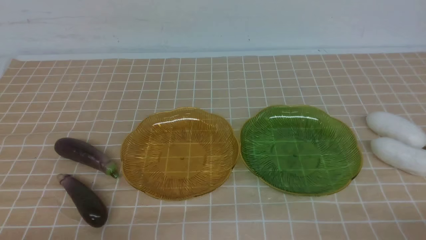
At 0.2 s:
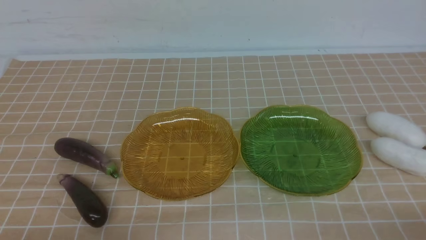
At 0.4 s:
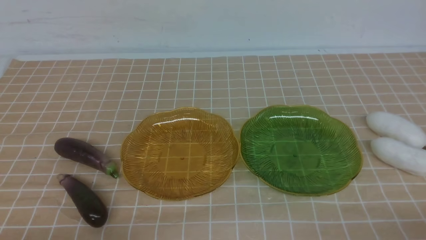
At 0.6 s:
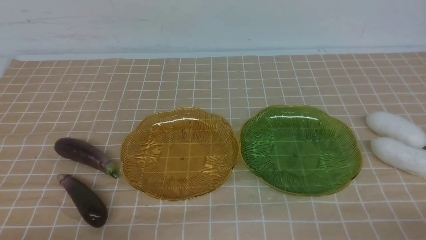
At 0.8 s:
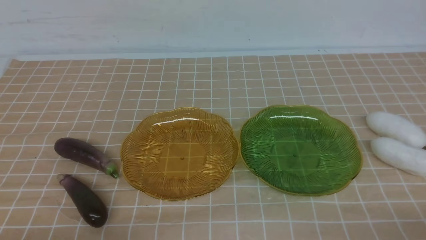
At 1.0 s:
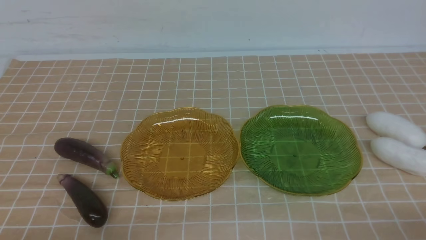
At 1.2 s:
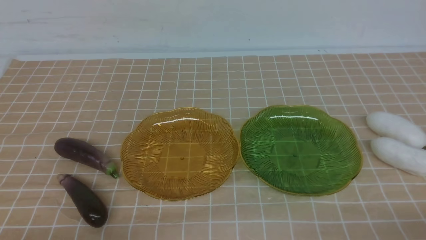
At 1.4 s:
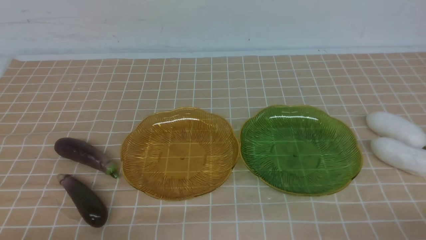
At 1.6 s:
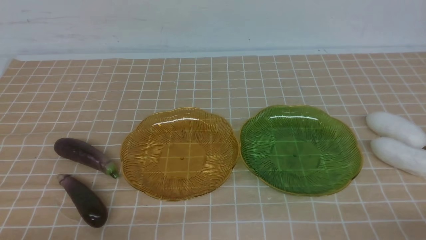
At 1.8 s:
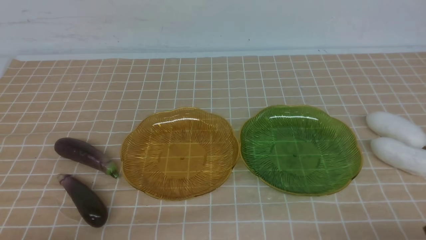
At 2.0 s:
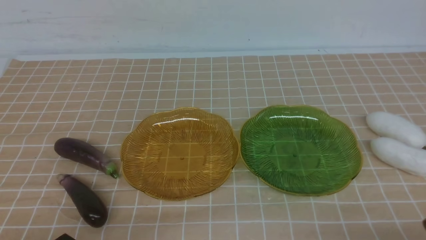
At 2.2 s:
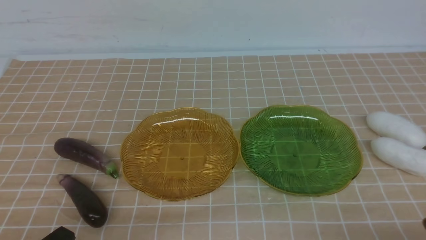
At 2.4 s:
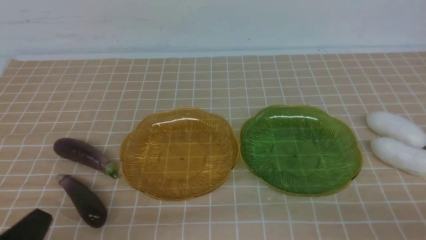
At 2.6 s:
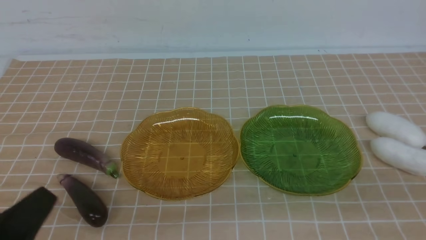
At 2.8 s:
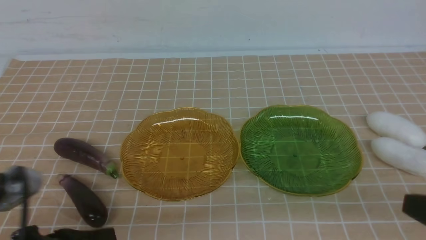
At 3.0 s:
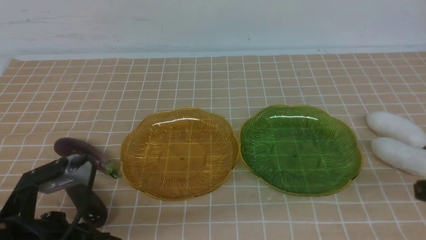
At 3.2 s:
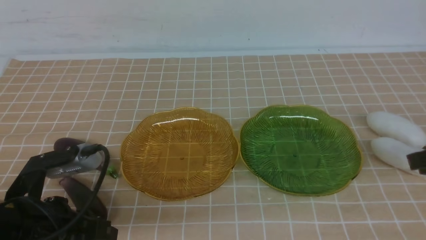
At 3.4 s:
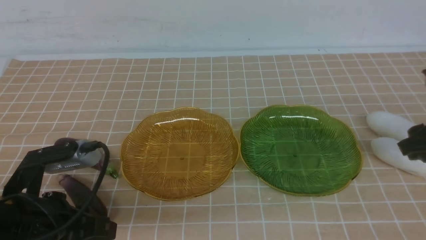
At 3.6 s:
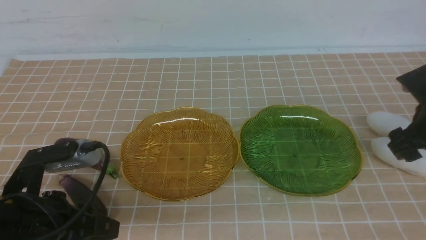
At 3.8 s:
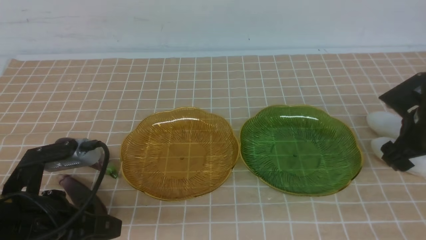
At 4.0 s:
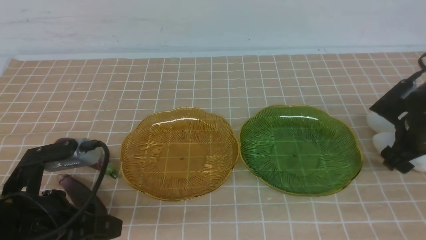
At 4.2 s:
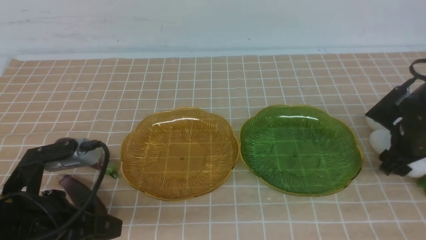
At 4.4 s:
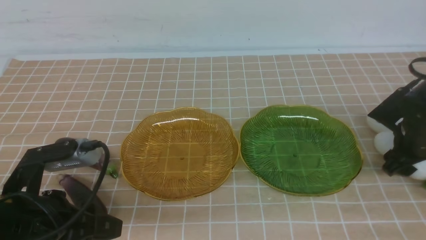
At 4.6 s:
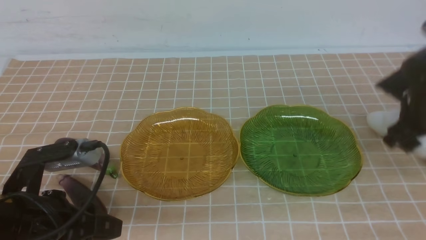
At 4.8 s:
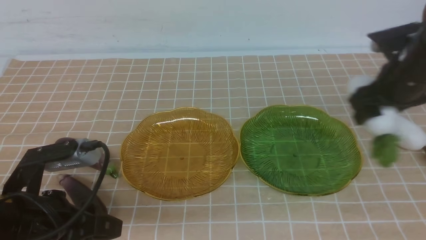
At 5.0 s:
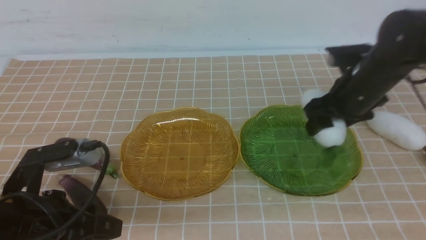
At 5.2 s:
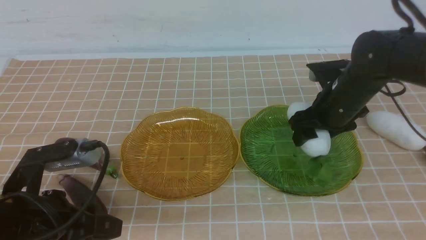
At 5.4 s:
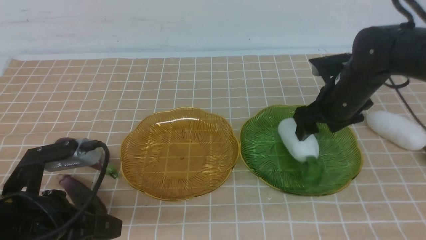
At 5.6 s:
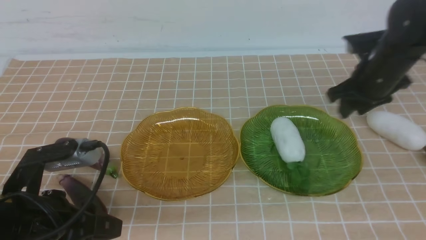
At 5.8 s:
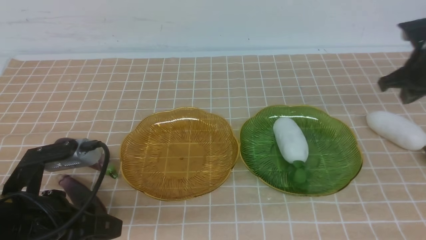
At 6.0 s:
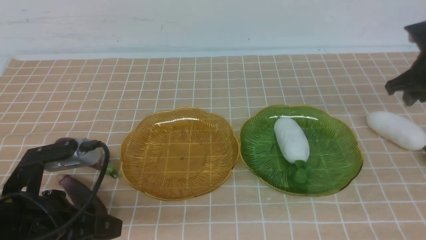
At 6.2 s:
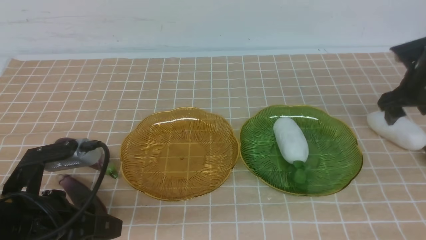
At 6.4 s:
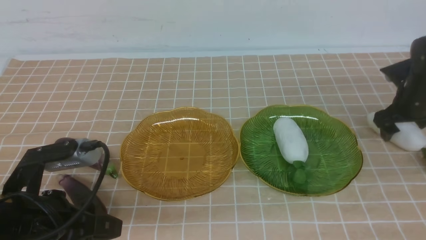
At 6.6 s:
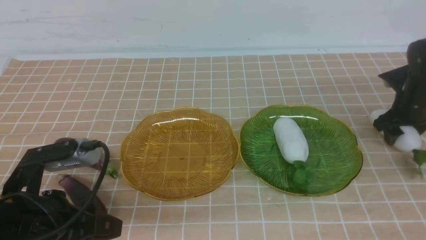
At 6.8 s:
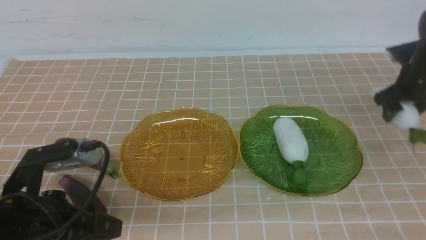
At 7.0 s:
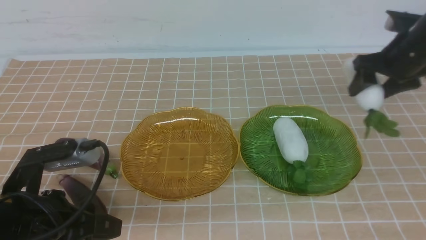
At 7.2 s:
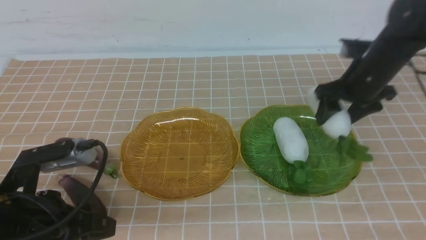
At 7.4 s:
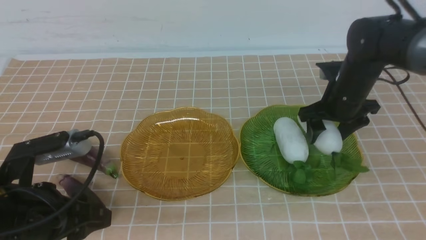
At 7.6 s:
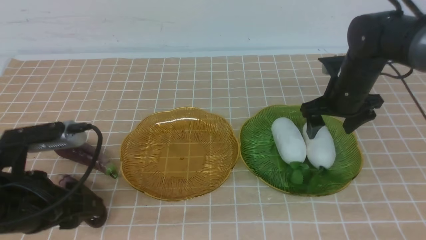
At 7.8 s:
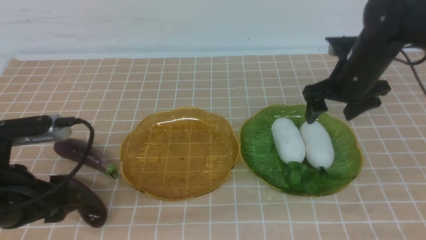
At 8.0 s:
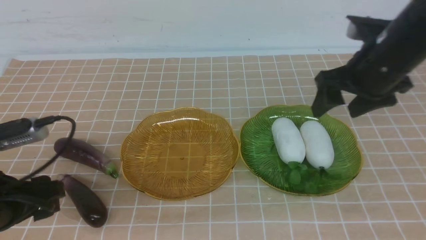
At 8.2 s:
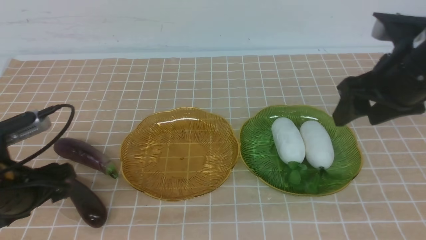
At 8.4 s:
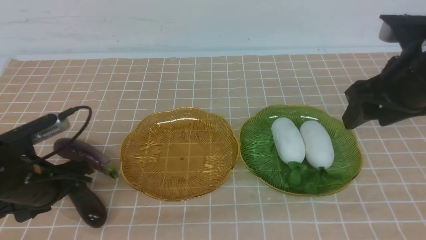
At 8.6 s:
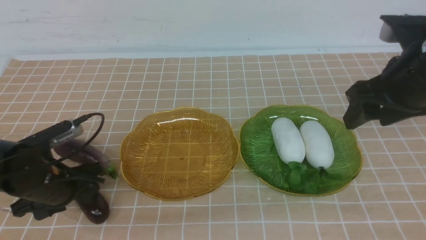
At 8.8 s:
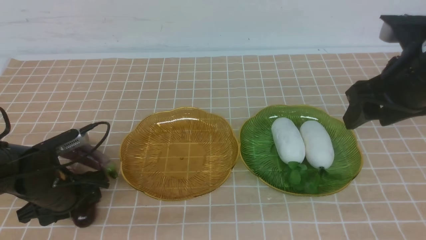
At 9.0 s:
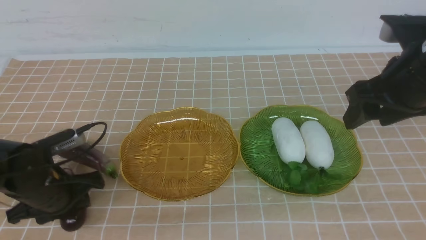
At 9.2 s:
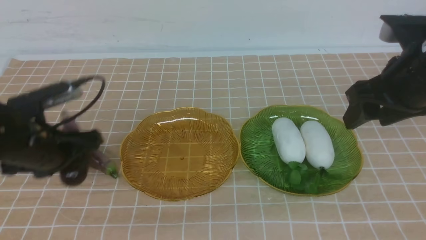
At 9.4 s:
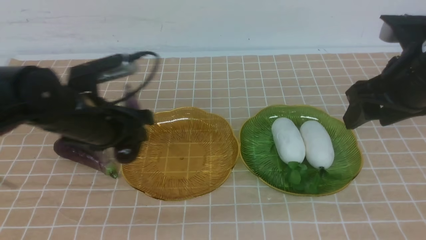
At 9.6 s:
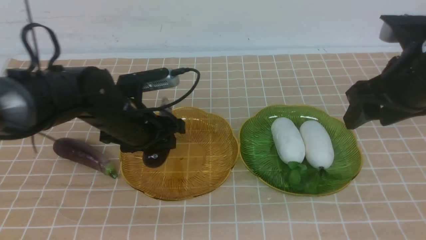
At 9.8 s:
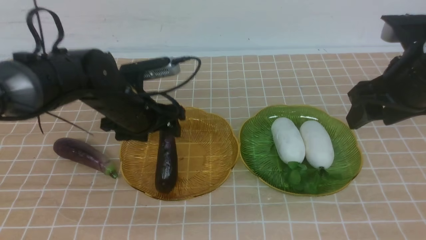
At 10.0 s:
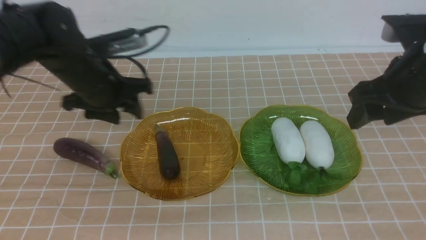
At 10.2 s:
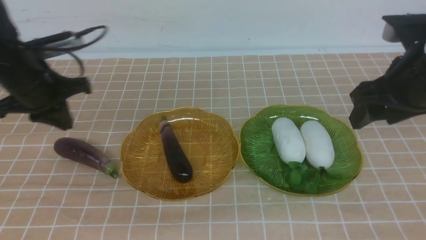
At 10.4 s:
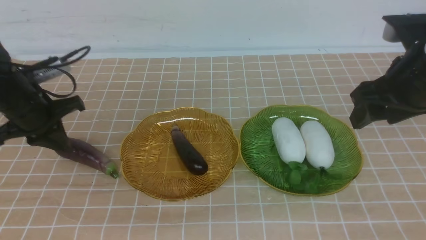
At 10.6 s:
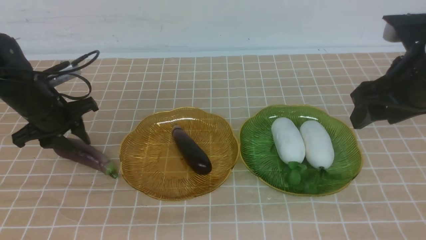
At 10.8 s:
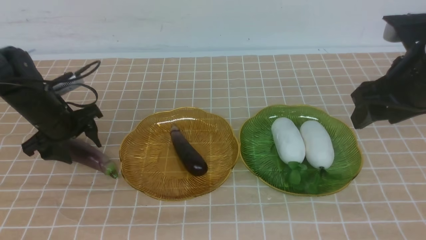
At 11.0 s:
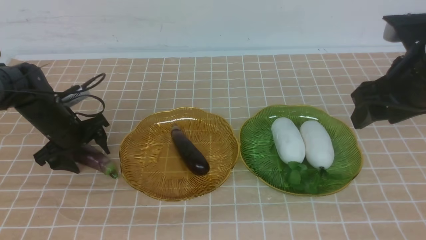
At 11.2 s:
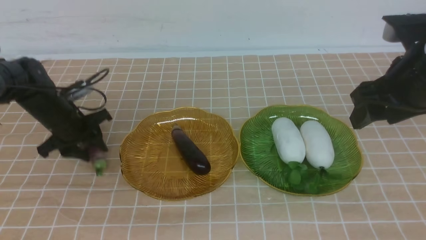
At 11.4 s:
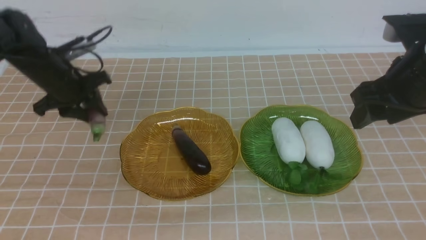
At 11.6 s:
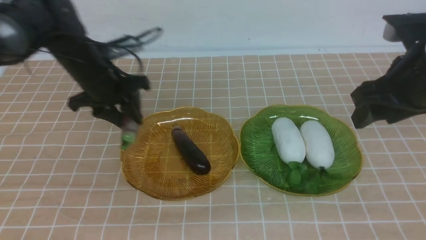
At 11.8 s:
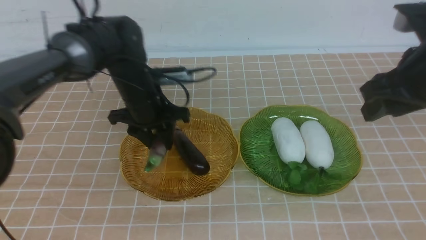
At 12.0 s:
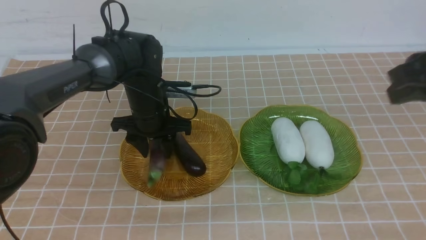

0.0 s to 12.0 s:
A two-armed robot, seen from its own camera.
Step, 0.0 to 5.2 s: use the right arm to grab a radish and put it into the right plate.
Step, 5.6 to 7.4 s: use the right arm to grab a radish and put it into the right plate.
Step, 7.6 to 9.6 s: use the left arm to grab an eggplant and put it into the left plate.
1.6 to 3.0 s: Both grippers move forward and upward, roughly 15 cm.
3.0 to 4.4 s: The right gripper shifts roughly 20 cm forward and downward, and opens, while the left gripper opens up.
4.4 to 6.0 s: The right gripper travels forward by roughly 5 cm, moves roughly 10 cm to the left and comes back, and closes, then opens again.
6.0 to 7.6 s: The right gripper moves to the left and upward, some 15 cm.
7.6 to 9.0 s: The left gripper moves forward, roughly 10 cm. The right gripper heads backward and upward, covering roughly 10 cm.
9.0 to 10.4 s: The left gripper heads forward and to the left, covering approximately 10 cm, and closes up.
10.4 to 12.0 s: The right gripper shifts roughly 10 cm upward and backward, and closes up, while the left gripper shifts about 15 cm to the right, and opens its fingers.

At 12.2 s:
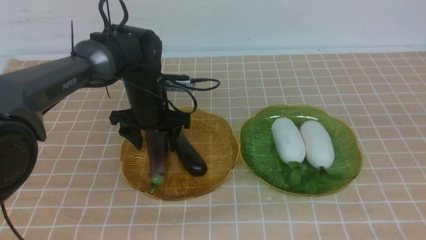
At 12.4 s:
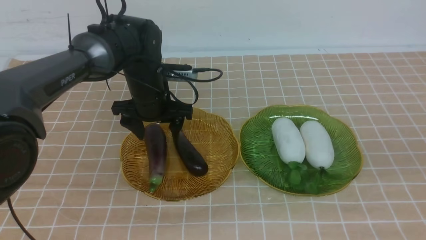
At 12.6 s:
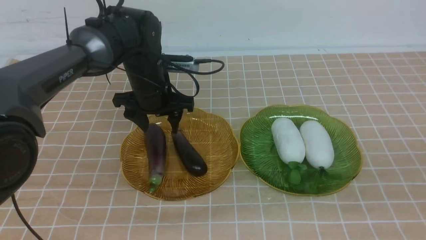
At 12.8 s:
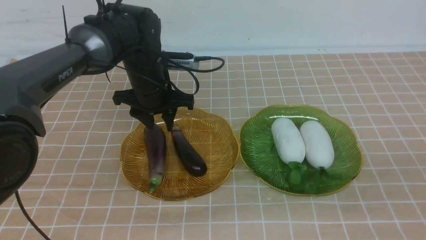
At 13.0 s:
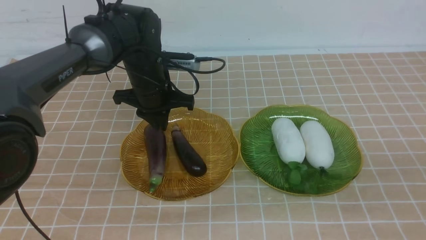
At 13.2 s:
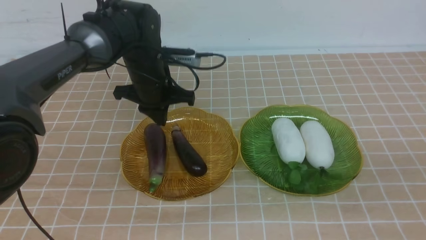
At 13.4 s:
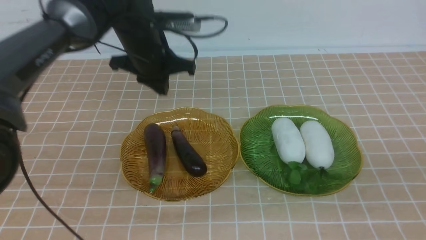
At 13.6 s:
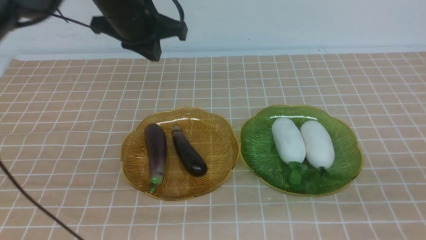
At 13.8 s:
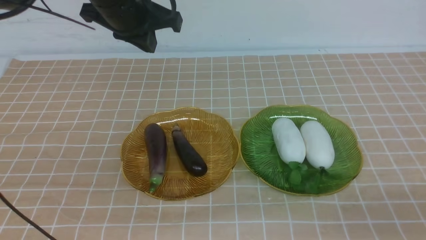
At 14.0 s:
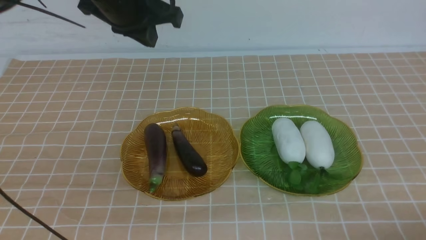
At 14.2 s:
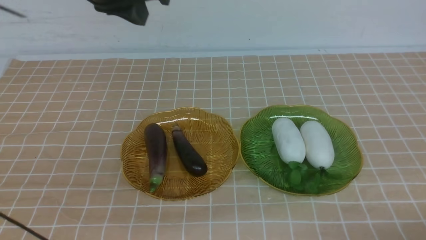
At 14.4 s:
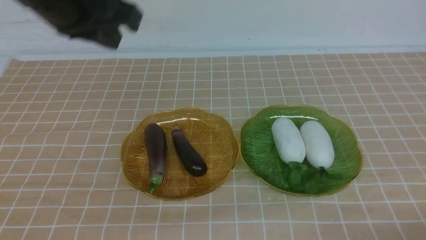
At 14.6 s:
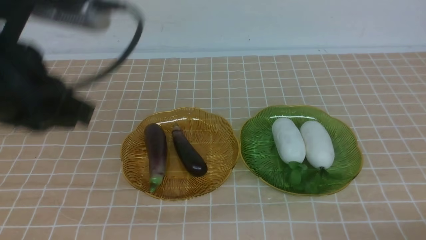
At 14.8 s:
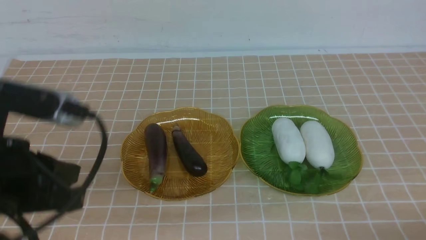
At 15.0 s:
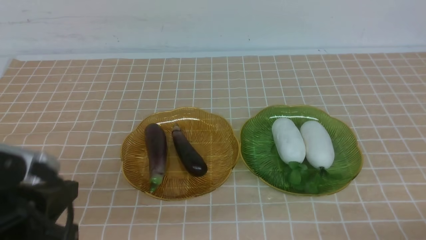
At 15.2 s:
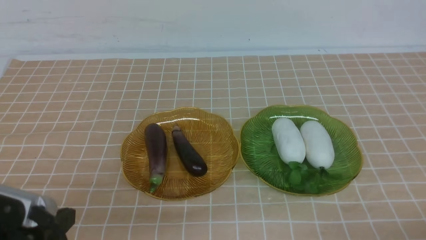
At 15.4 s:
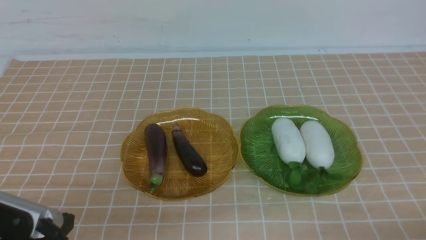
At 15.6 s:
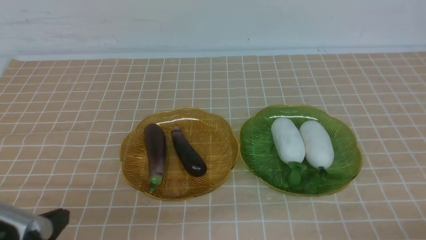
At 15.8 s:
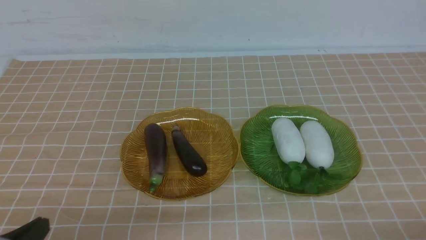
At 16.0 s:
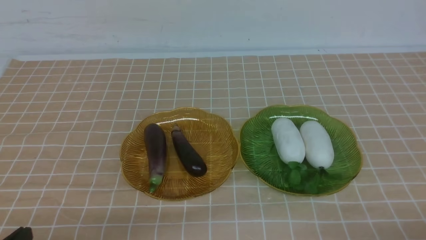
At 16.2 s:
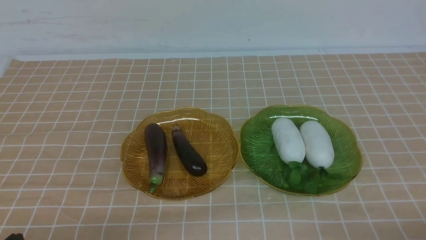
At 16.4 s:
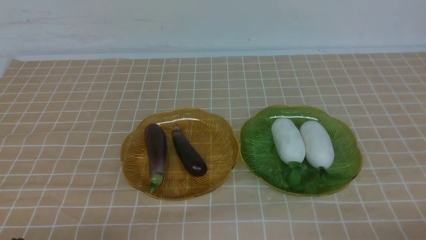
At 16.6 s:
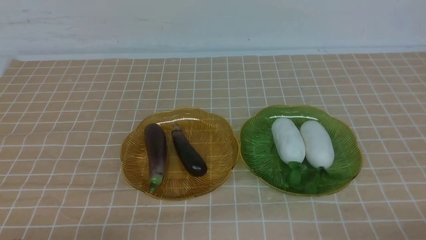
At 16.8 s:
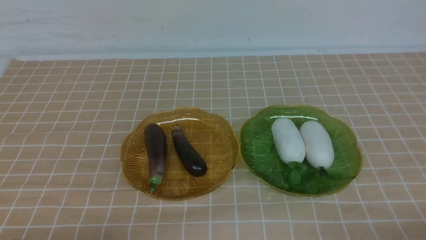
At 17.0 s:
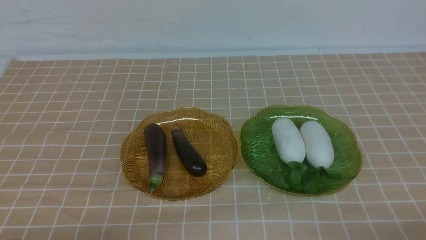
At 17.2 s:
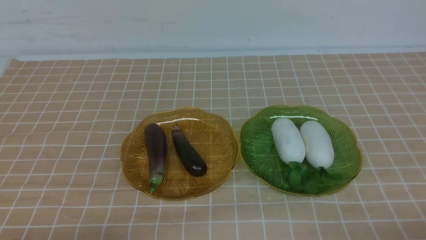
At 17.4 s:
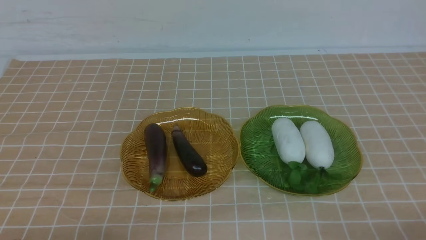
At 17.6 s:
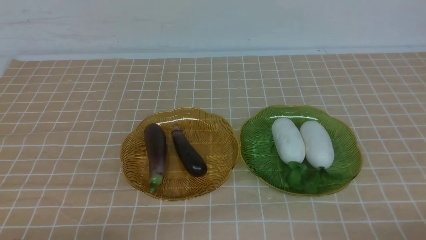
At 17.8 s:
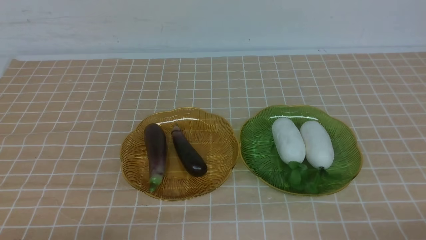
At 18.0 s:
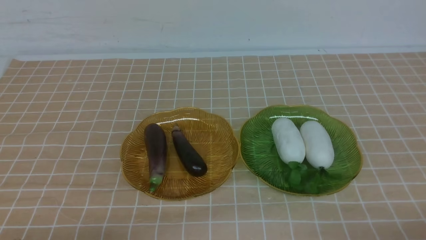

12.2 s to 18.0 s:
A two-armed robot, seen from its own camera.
12.2 to 13.6 s: The right gripper moves downward and backward, some 20 cm; the left gripper shifts about 20 cm upward, and closes.
13.6 to 15.0 s: The right gripper shifts some 5 cm downward; the left gripper is displaced backward and downward by roughly 30 cm.
15.0 to 16.6 s: The left gripper is displaced downward by roughly 10 cm.
16.6 to 18.0 s: Both grippers stay put.
